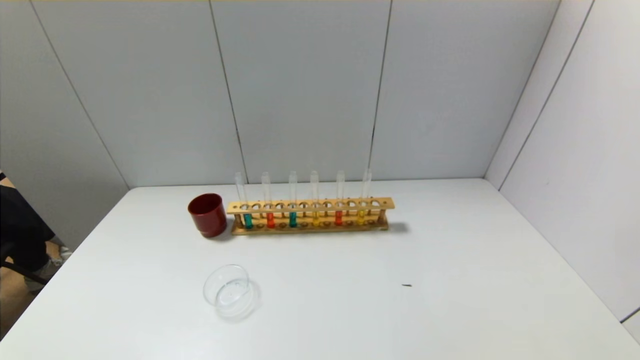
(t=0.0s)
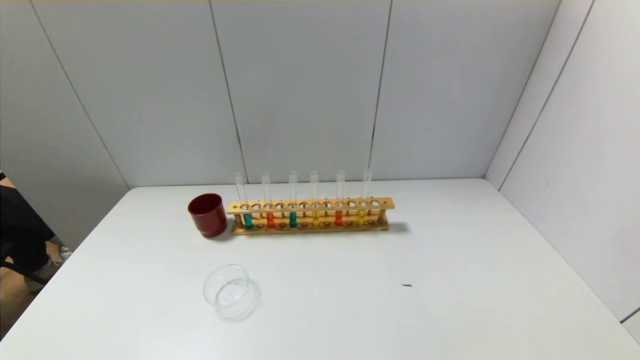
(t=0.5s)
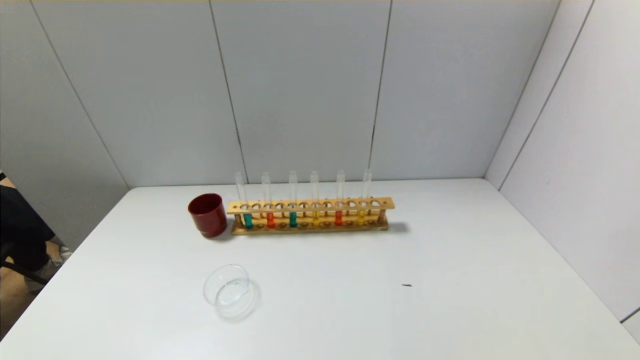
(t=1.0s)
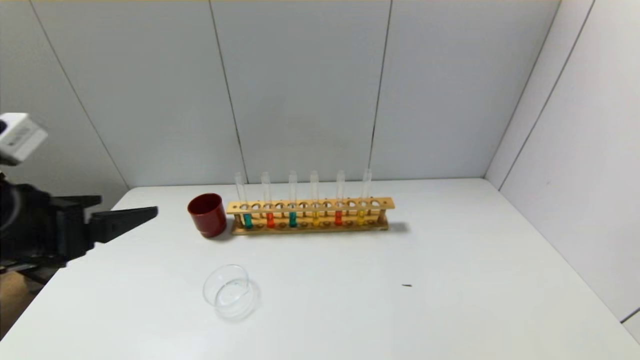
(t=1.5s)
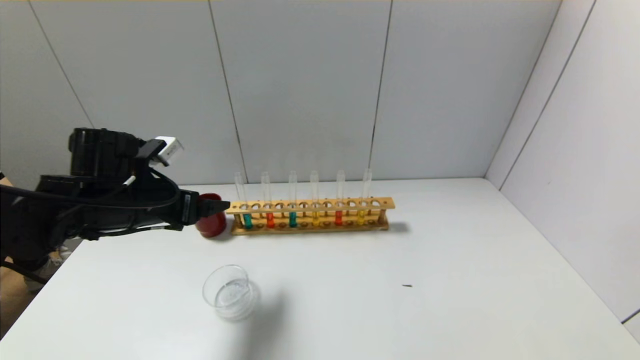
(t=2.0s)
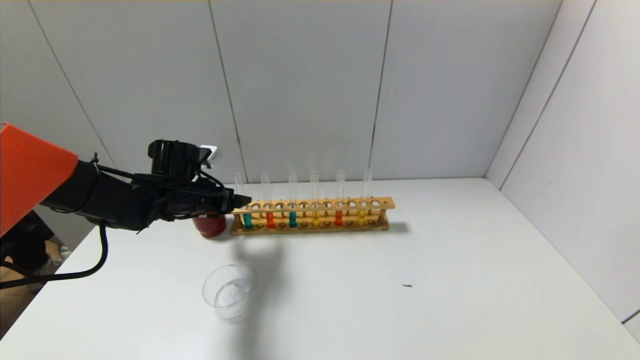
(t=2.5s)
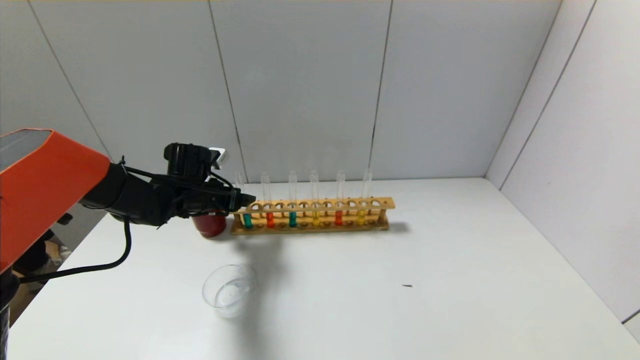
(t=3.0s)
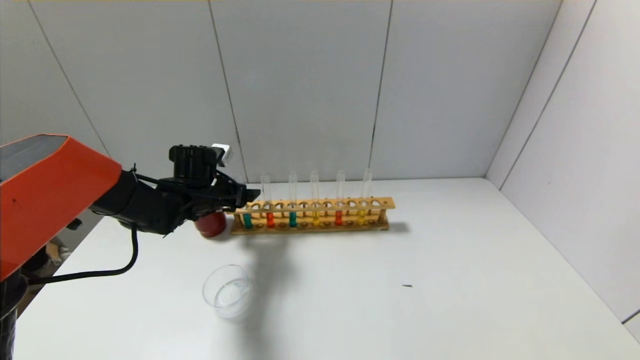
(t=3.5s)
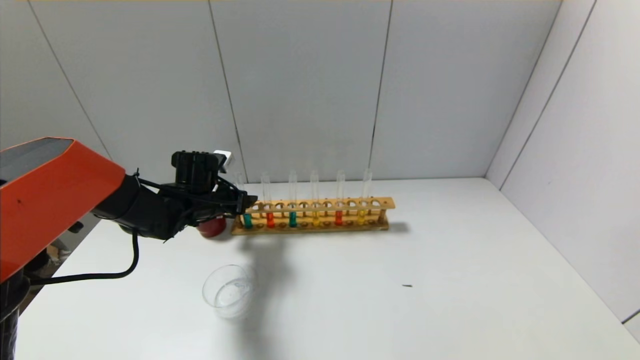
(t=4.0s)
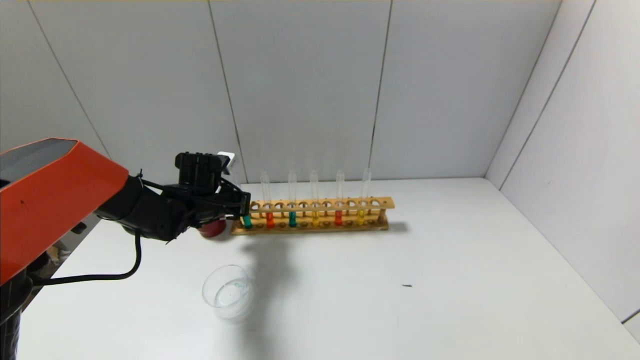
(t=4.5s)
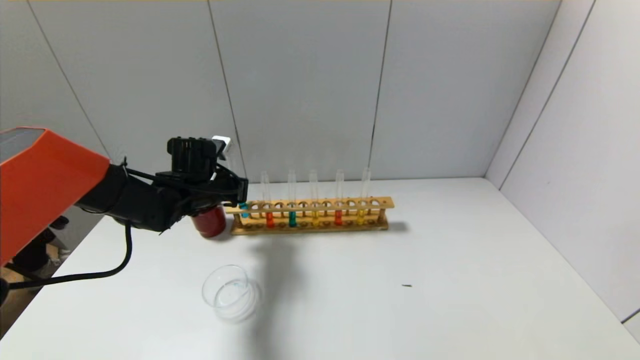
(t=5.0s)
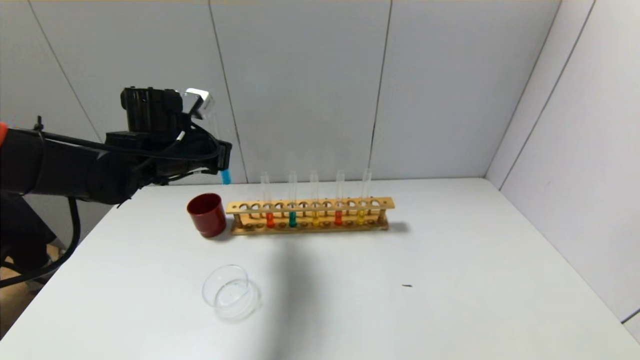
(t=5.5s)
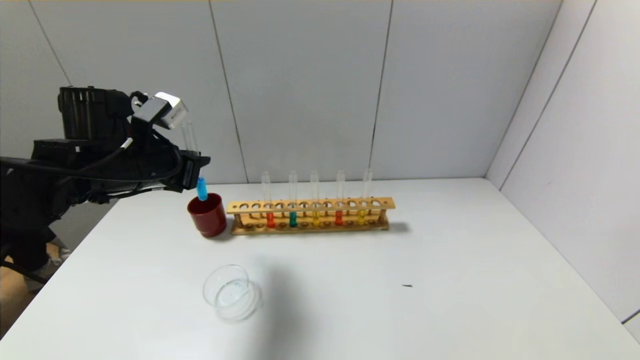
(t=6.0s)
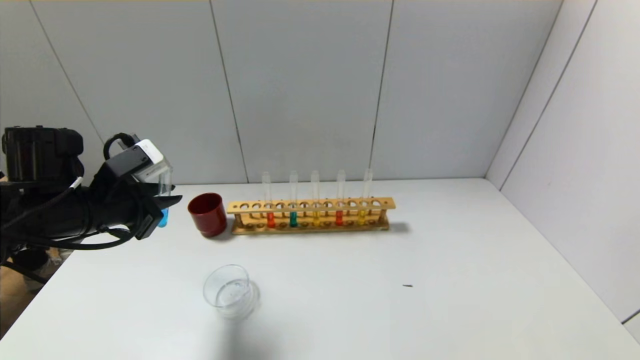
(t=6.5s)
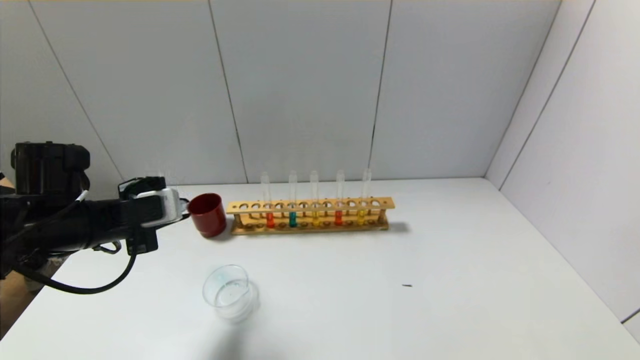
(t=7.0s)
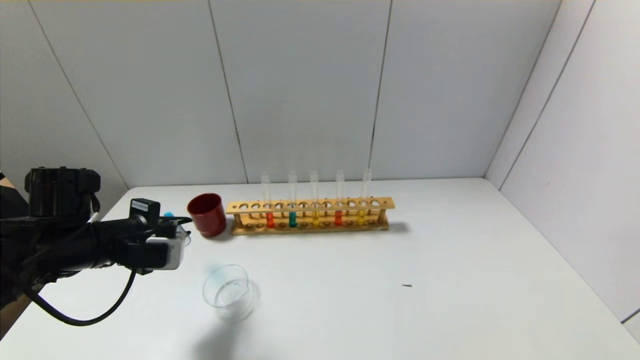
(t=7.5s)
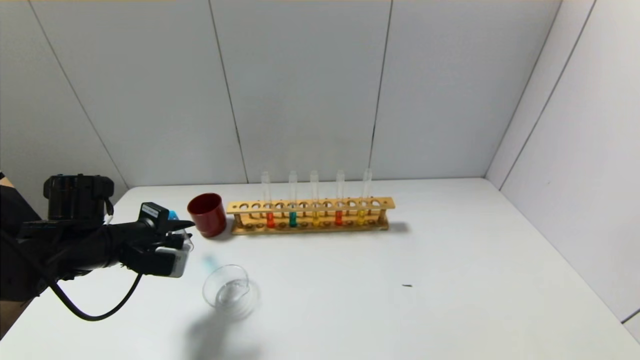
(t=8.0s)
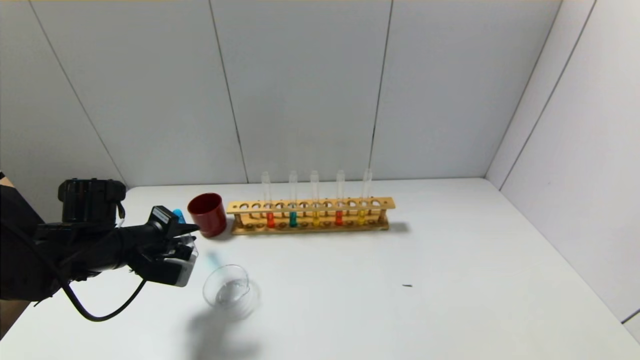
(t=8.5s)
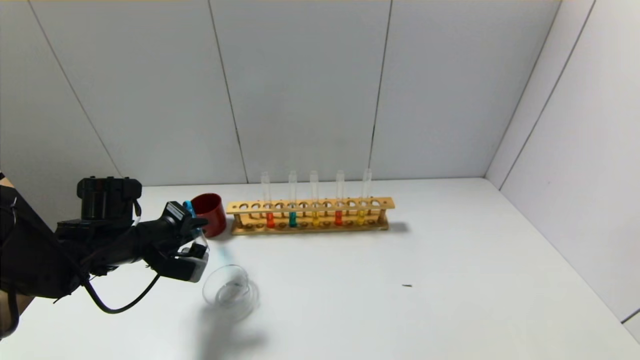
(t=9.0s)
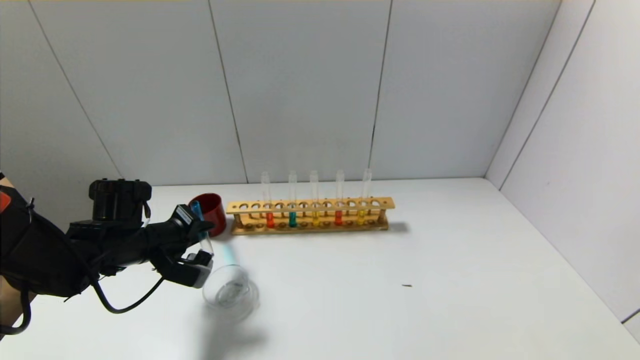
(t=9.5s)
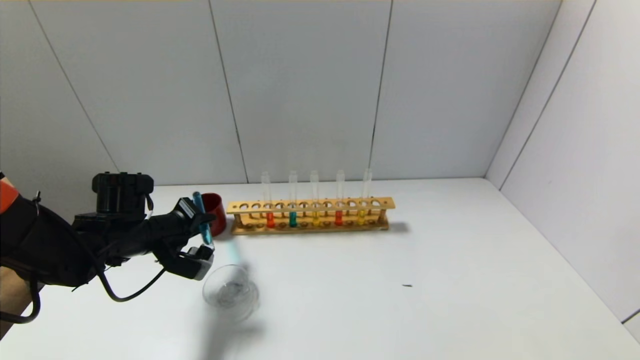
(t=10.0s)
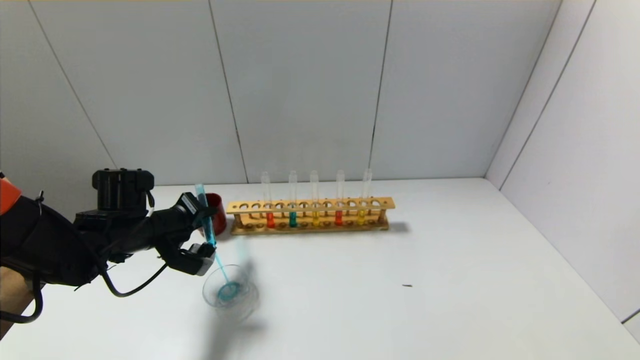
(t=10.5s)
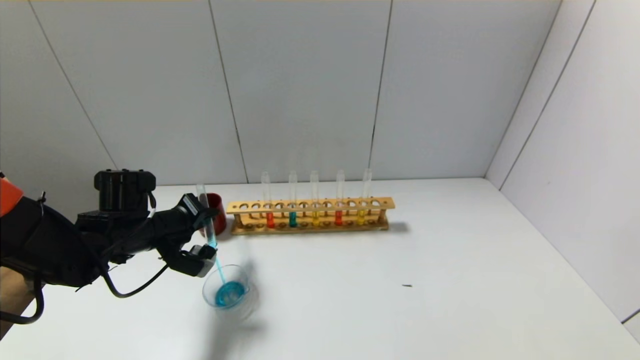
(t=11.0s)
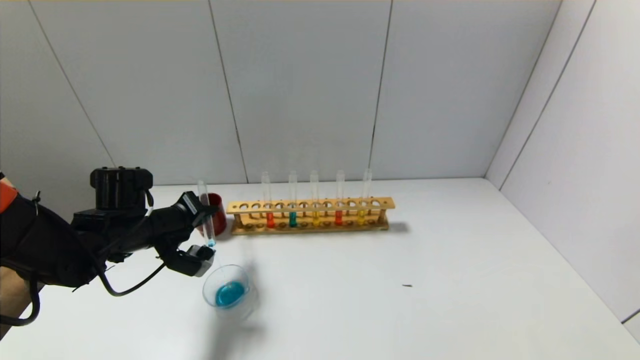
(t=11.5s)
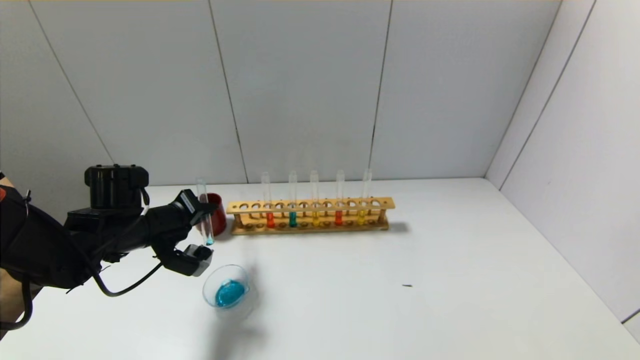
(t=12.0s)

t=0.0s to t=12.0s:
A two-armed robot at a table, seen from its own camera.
Step, t=0.0s to t=4.0s: Grasp the blue reagent with the left gripper.
t=0.0s to t=2.0s: The left gripper travels forward by roughly 35 cm.
t=2.0s to t=4.0s: The left gripper is displaced forward and downward by roughly 15 cm.
t=4.0s to t=6.0s: The left gripper goes roughly 15 cm upward and backward, and closes up.
t=6.0s to t=8.0s: The left gripper shifts roughly 10 cm downward and to the left.
t=10.0s to t=12.0s: The grippers move only a little.

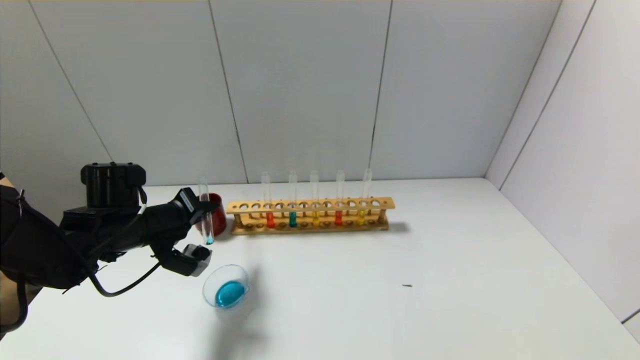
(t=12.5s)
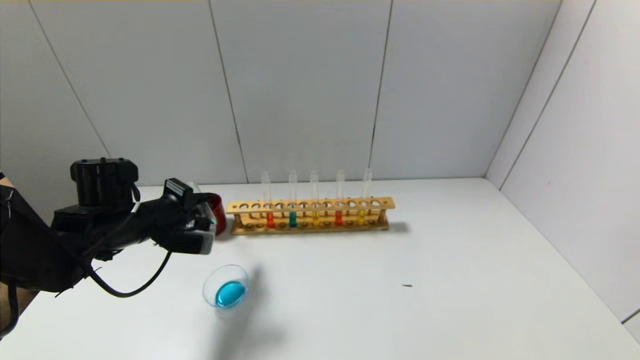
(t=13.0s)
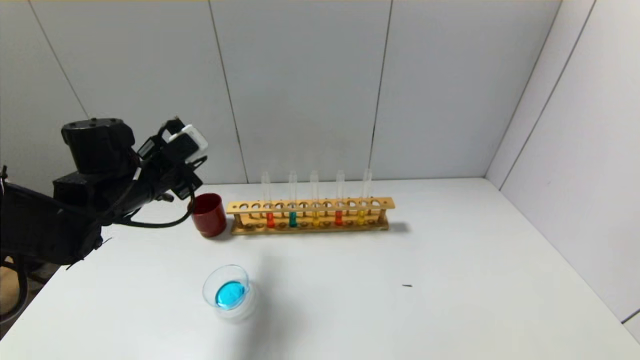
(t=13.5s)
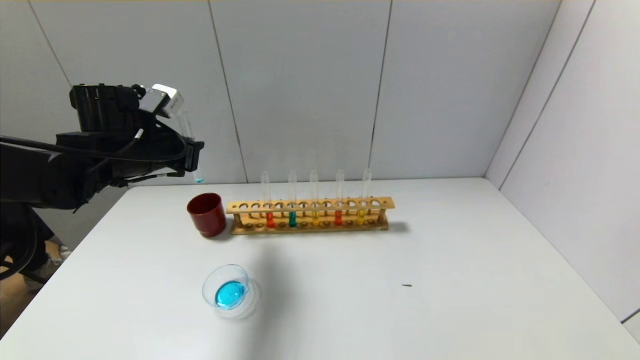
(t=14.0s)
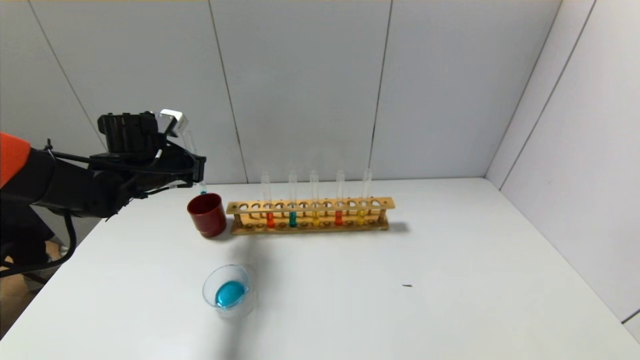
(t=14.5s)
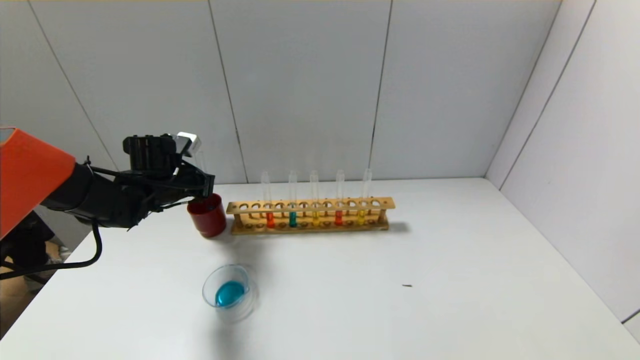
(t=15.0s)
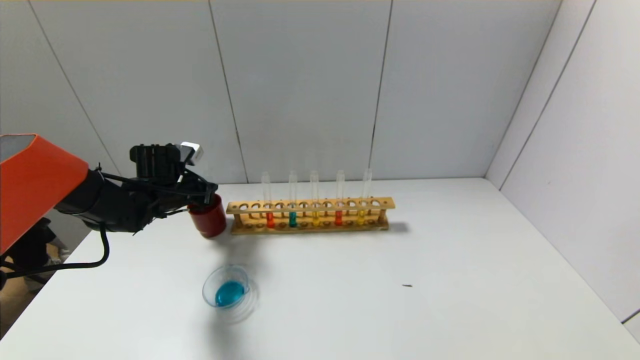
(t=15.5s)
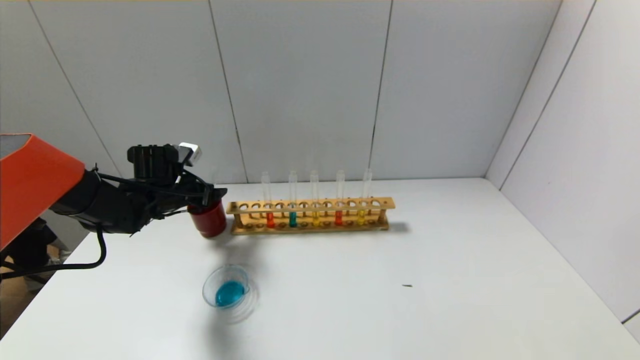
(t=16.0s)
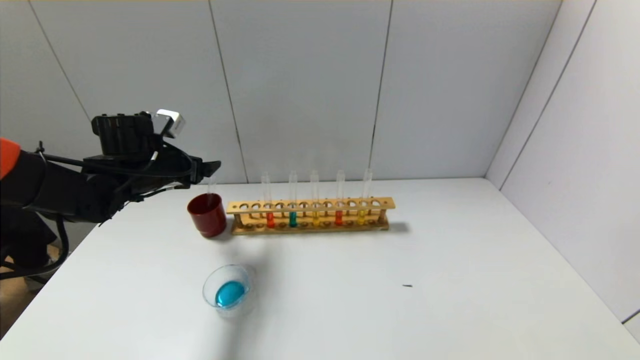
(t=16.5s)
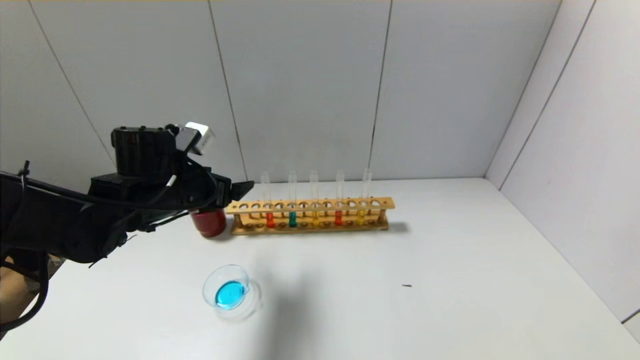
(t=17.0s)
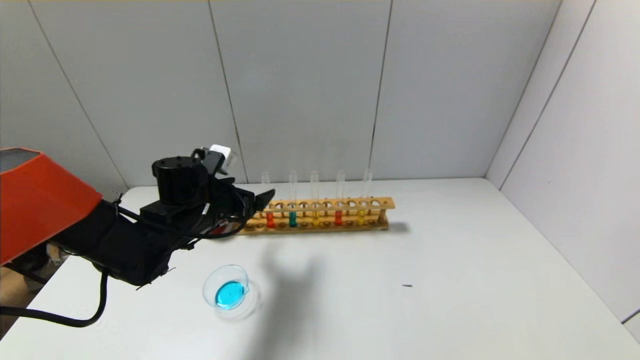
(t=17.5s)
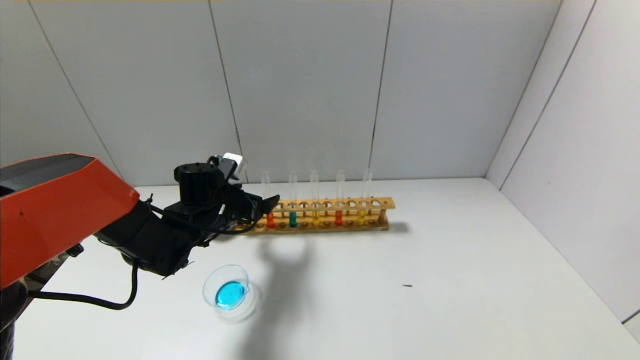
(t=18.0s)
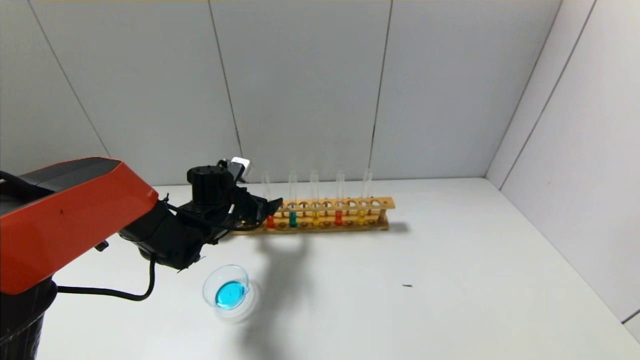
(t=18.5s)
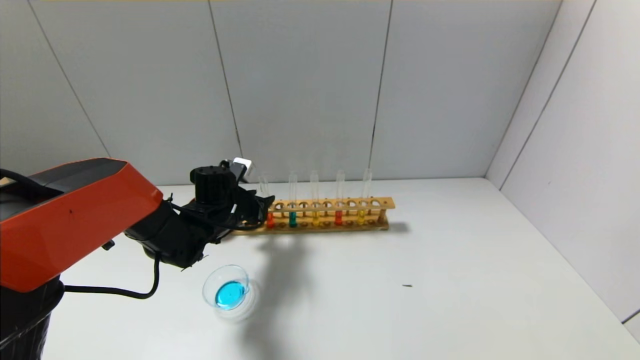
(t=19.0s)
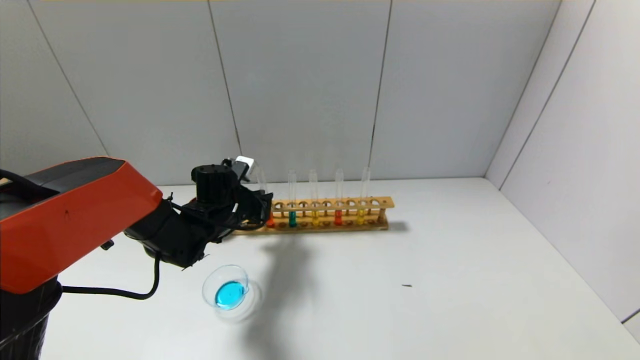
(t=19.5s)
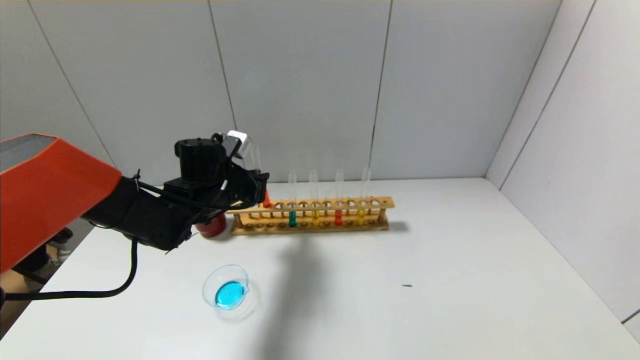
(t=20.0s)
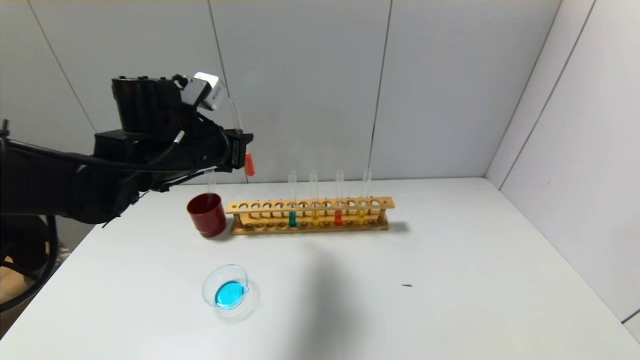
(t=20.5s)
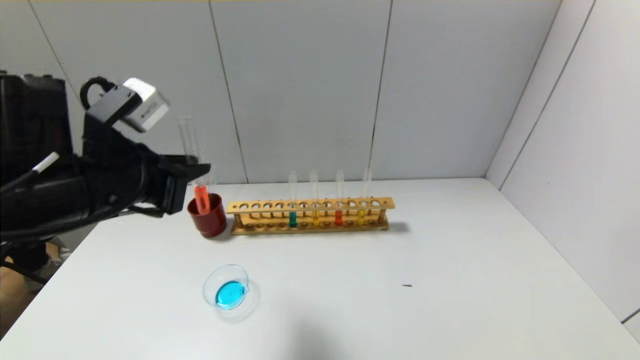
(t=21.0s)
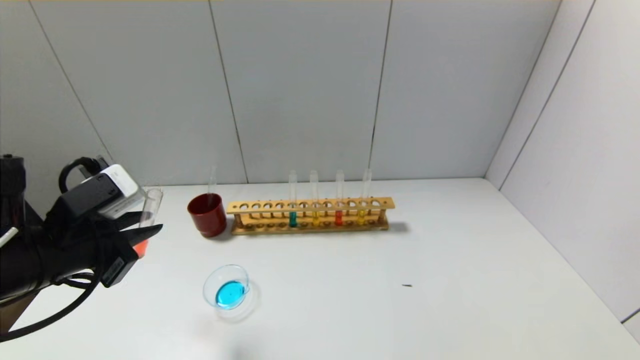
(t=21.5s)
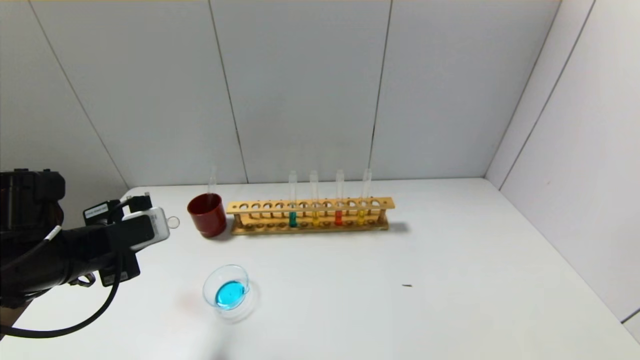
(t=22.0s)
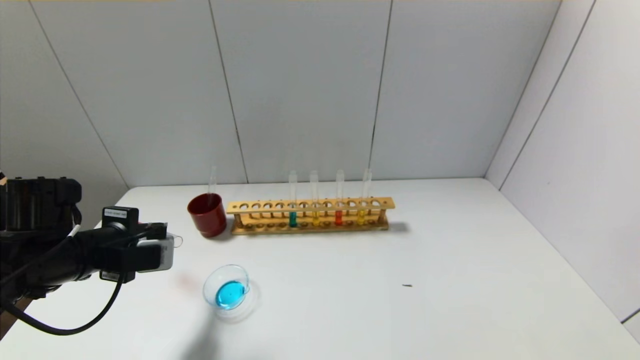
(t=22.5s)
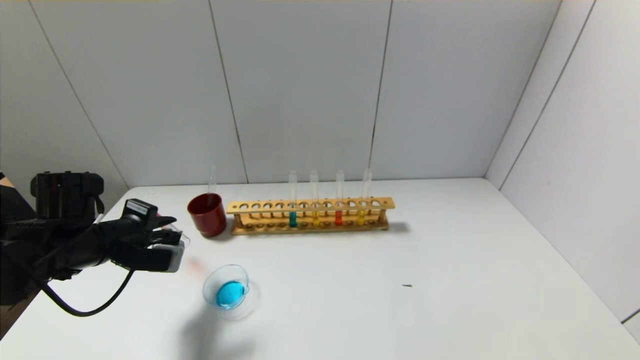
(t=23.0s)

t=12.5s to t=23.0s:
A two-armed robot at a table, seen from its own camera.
Step, t=13.5s to t=15.5s: Place the test tube into the brown cup with the left gripper.
Step, t=16.0s to t=19.0s: Grasp the red reagent with the left gripper.
t=12.5s to t=14.5s: The left gripper is displaced forward by approximately 10 cm.
t=14.5s to t=16.5s: The left gripper opens.
t=16.5s to t=19.0s: The left gripper is displaced downward and to the right by approximately 15 cm, and closes its fingers.
t=19.0s to t=21.0s: The left gripper moves backward and upward, roughly 25 cm.
t=21.0s to t=23.0s: The left gripper heads downward, to the left and forward, covering some 15 cm.
